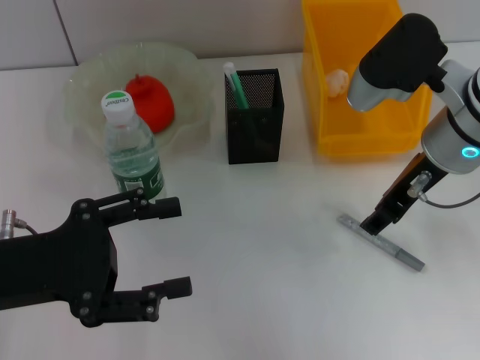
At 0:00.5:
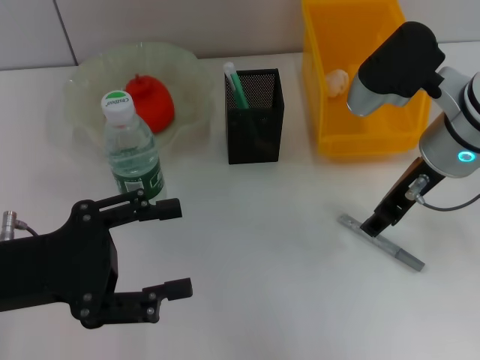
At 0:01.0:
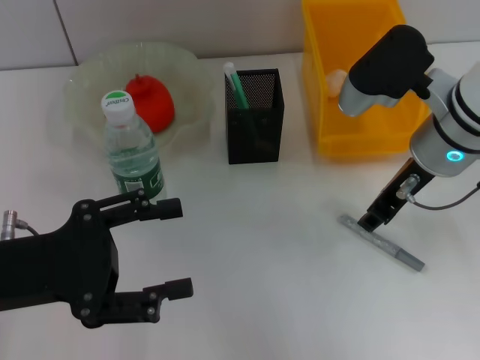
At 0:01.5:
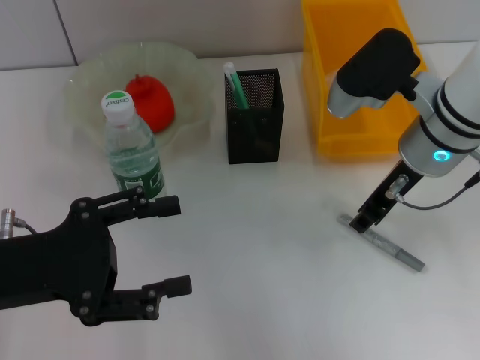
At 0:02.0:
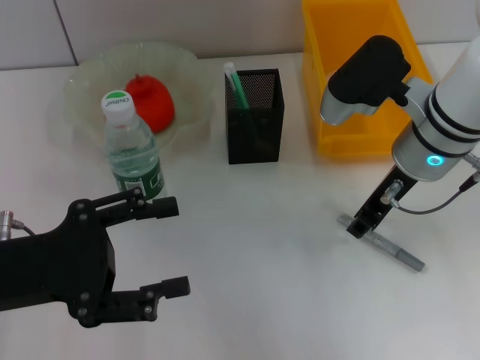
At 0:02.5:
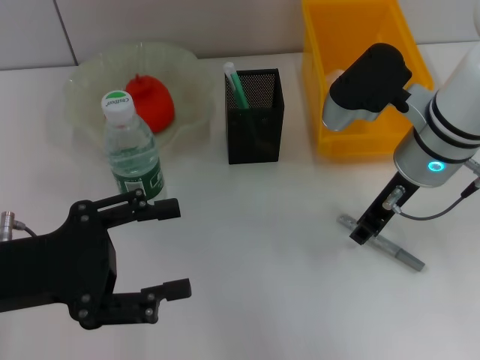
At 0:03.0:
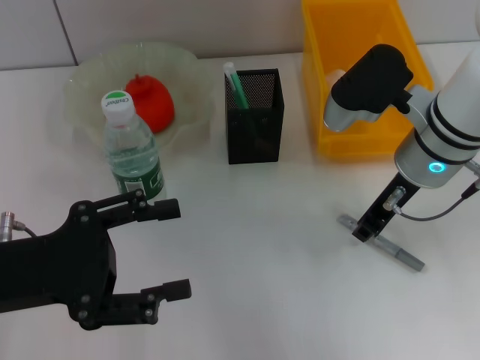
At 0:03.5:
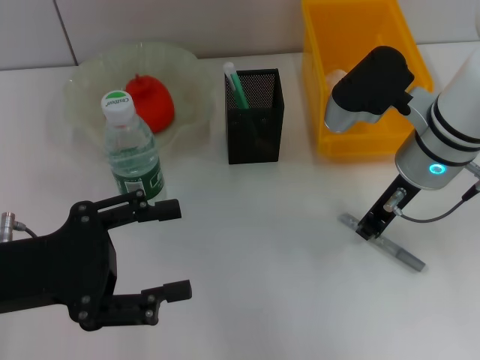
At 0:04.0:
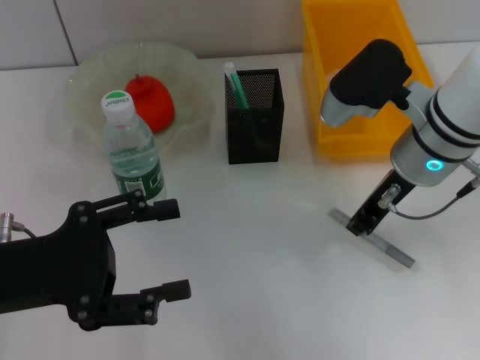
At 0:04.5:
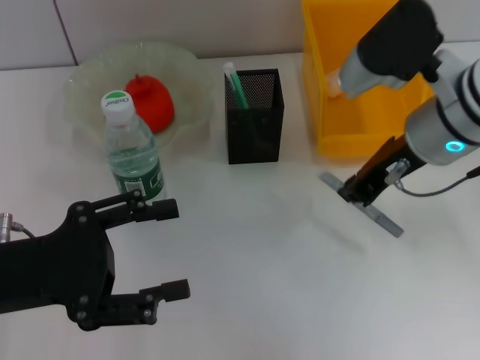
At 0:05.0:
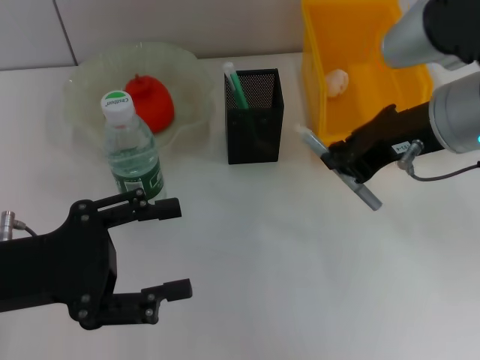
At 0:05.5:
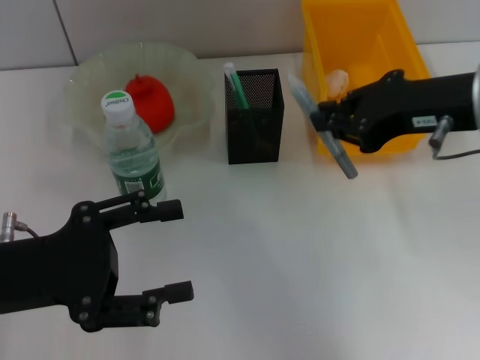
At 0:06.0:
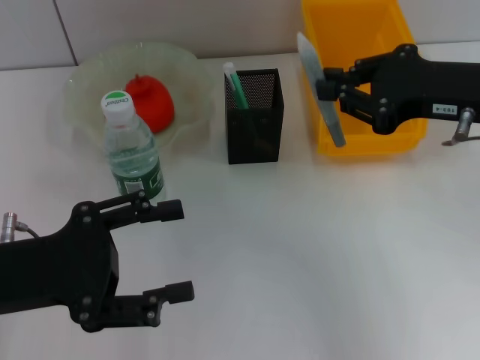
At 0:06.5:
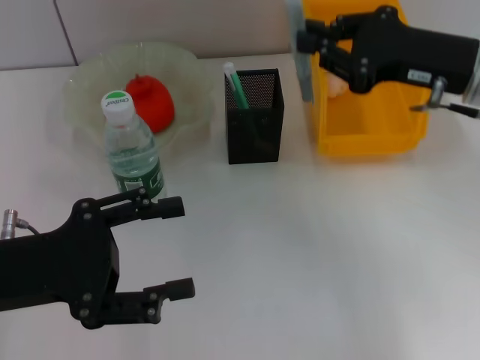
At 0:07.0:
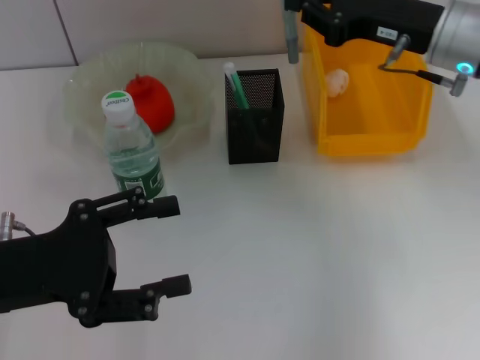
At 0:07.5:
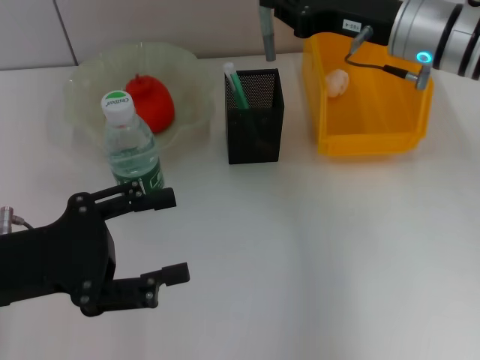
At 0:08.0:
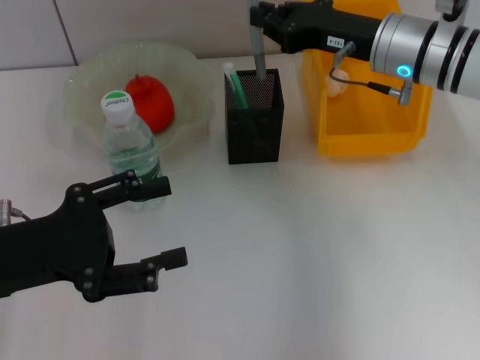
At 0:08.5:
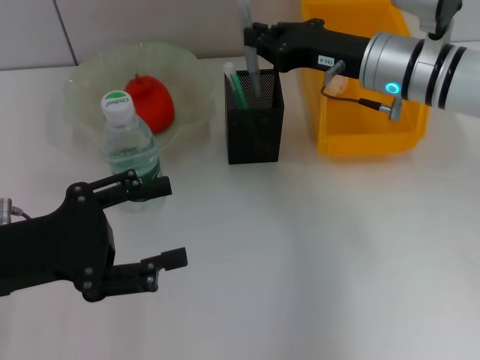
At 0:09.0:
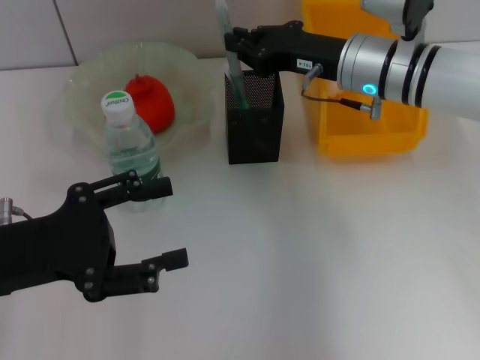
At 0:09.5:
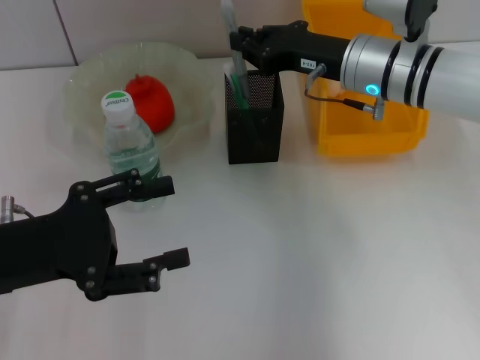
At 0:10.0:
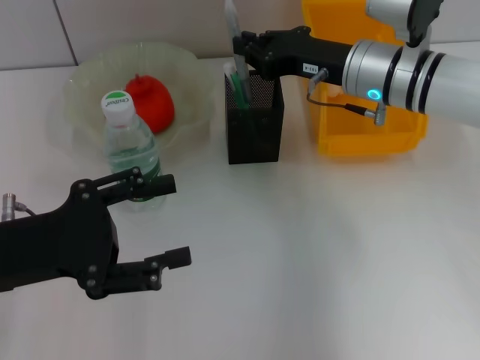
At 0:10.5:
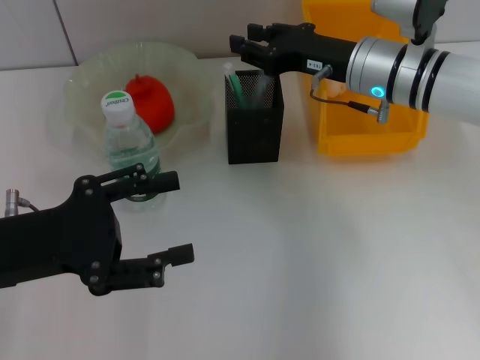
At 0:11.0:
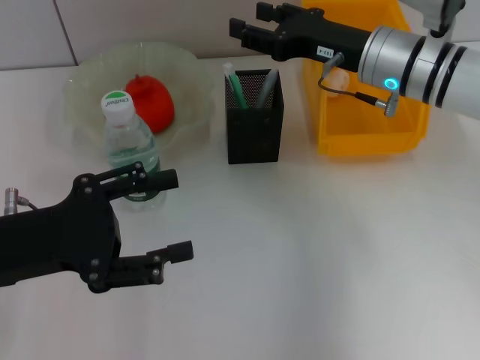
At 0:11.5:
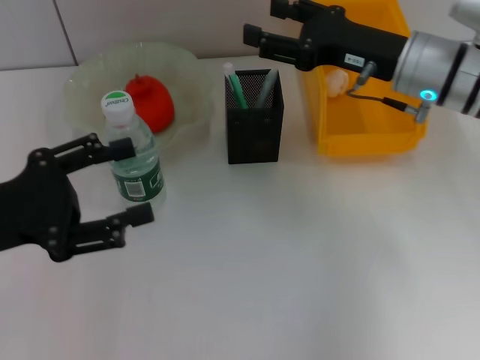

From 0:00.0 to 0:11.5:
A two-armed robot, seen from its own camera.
Step, from 0:00.0 to 0:03.5: Grab the gray glue with the right hand.
Step, from 0:04.0 to 0:10.5: Place the gray glue into the pen holder with the right hand.
From 0:00.0 to 0:02.0: The right gripper closes.
From 0:02.0 to 0:04.0: The right gripper closes.
From 0:04.0 to 0:06.0: The right gripper travels to the right and upward by roughly 10 cm.
From 0:06.0 to 0:07.5: The right gripper travels forward by about 10 cm.
From 0:07.5 to 0:09.5: The right gripper shifts by about 5 cm.
From 0:09.5 to 0:11.5: The right gripper ends up about 5 cm from where it was, and opens.

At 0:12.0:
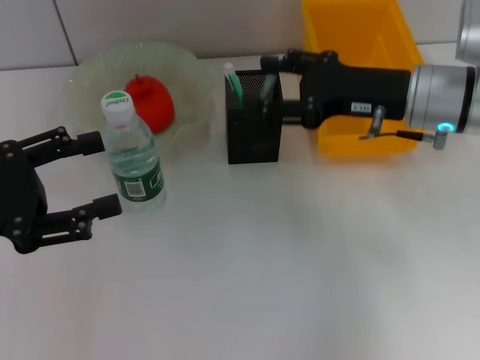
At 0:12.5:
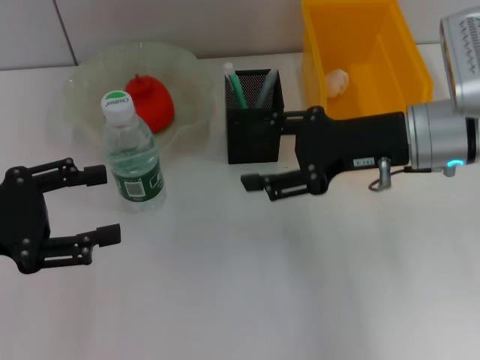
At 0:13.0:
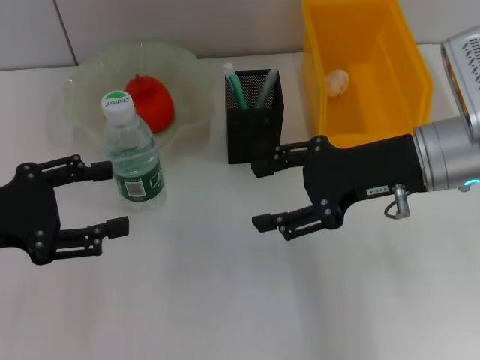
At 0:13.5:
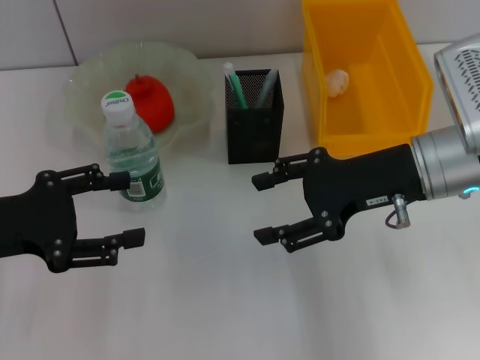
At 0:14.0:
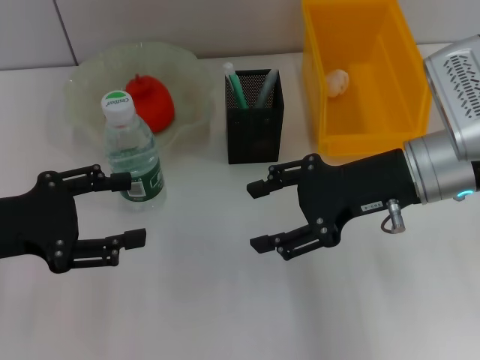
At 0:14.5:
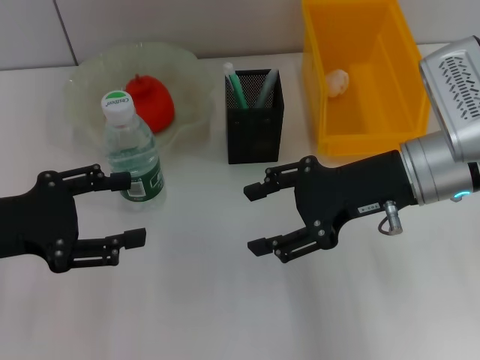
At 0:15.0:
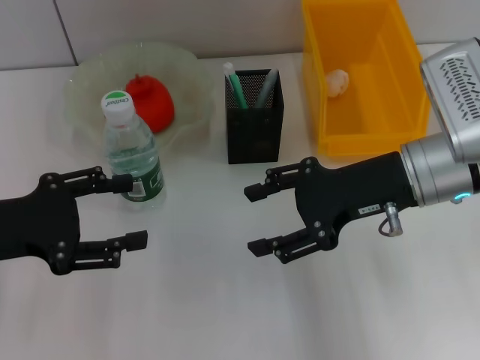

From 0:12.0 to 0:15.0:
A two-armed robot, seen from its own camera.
From 0:13.5 to 0:15.0: Both grippers stay about where they are.
